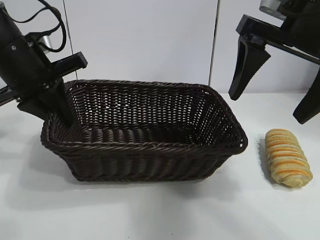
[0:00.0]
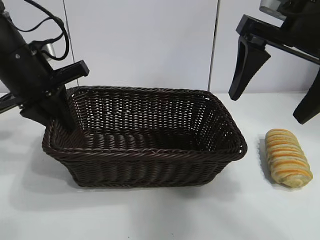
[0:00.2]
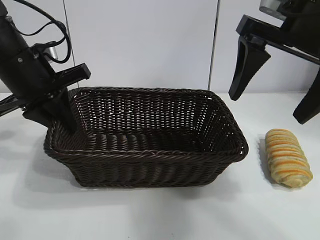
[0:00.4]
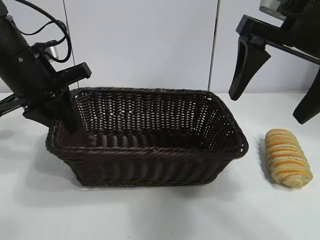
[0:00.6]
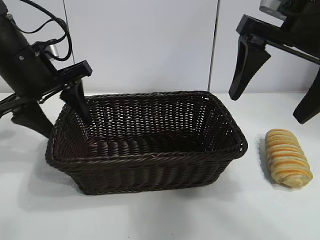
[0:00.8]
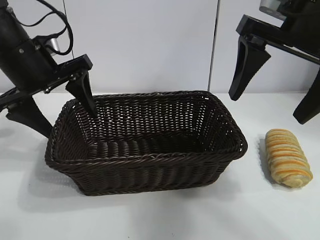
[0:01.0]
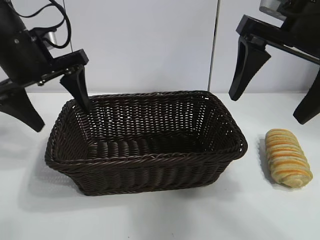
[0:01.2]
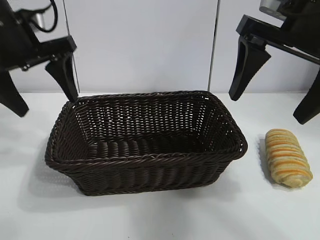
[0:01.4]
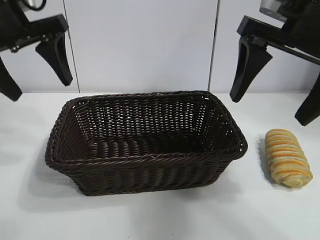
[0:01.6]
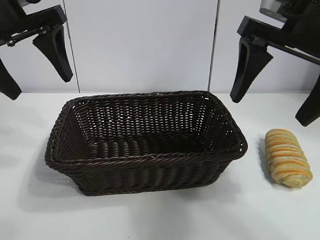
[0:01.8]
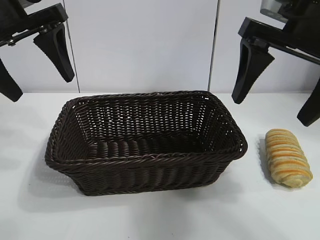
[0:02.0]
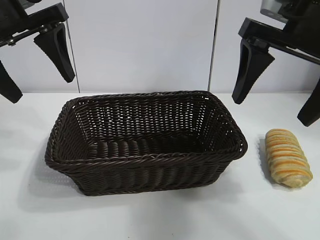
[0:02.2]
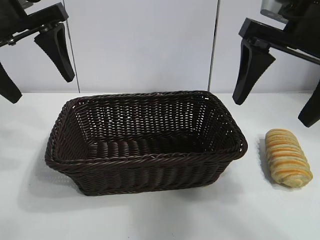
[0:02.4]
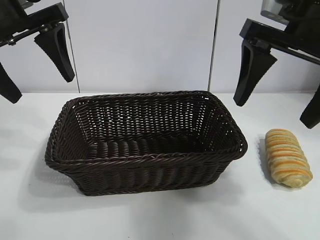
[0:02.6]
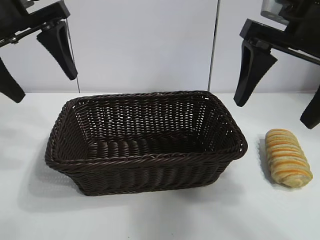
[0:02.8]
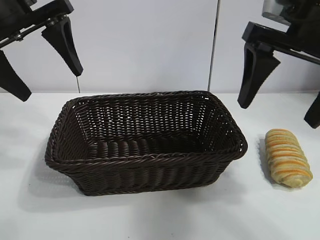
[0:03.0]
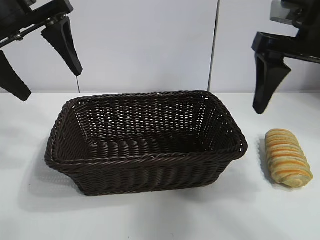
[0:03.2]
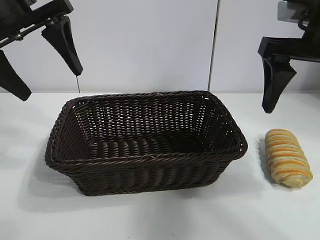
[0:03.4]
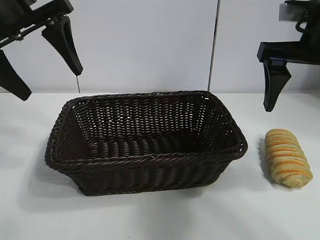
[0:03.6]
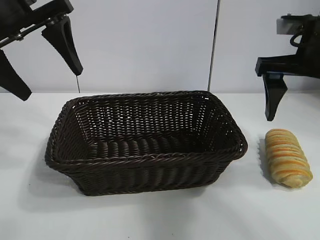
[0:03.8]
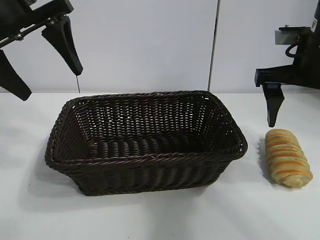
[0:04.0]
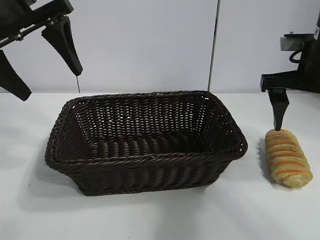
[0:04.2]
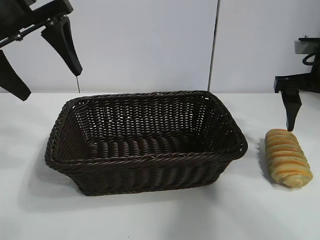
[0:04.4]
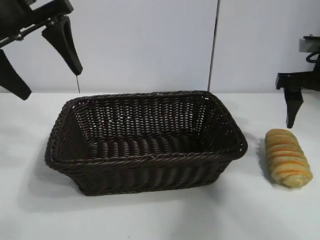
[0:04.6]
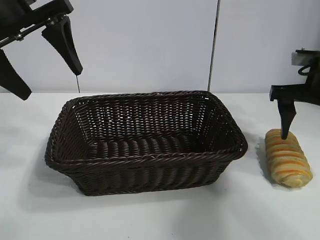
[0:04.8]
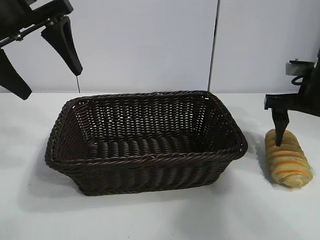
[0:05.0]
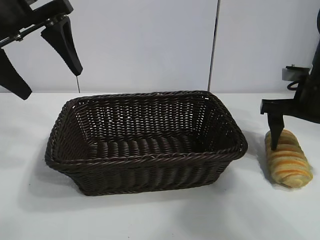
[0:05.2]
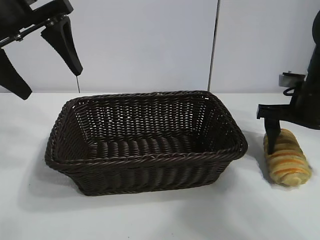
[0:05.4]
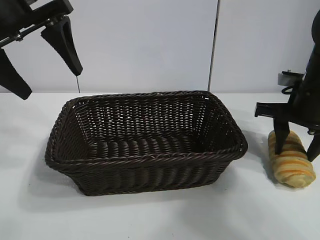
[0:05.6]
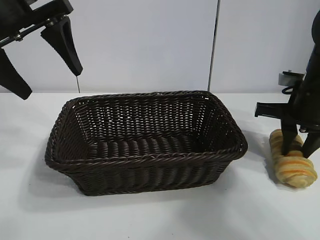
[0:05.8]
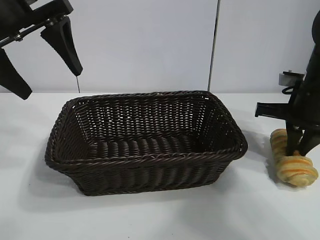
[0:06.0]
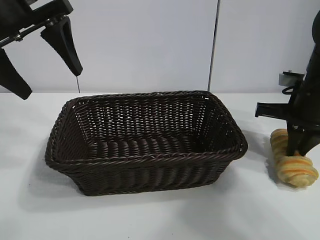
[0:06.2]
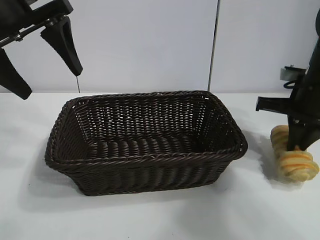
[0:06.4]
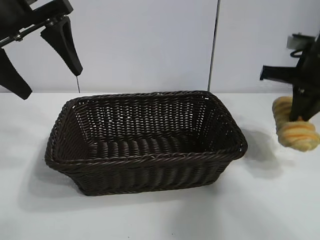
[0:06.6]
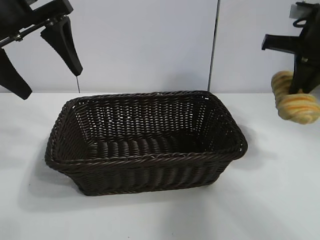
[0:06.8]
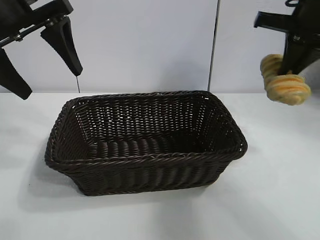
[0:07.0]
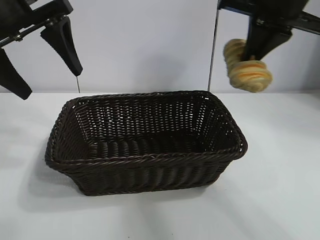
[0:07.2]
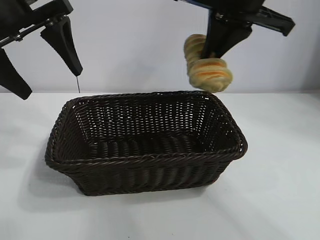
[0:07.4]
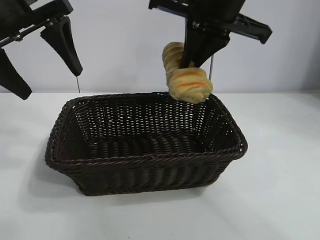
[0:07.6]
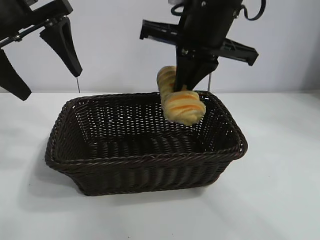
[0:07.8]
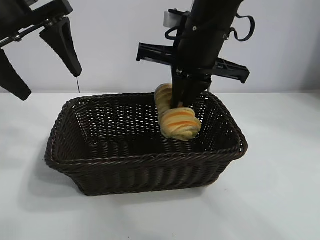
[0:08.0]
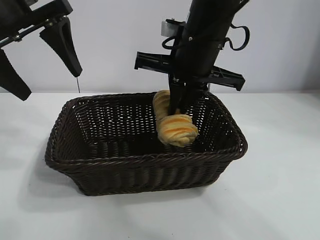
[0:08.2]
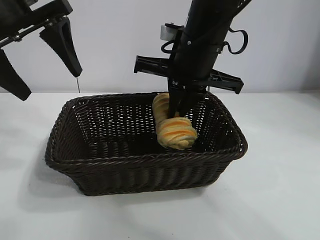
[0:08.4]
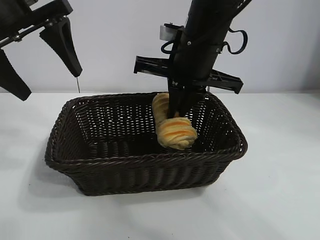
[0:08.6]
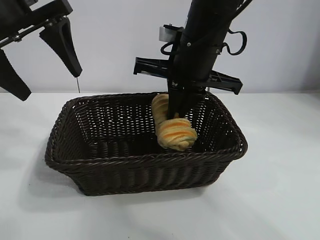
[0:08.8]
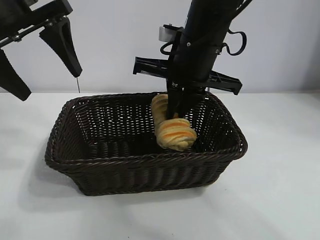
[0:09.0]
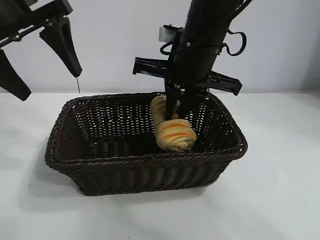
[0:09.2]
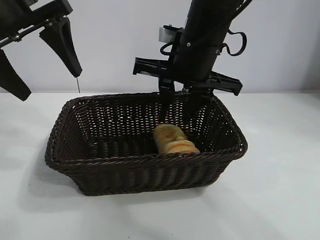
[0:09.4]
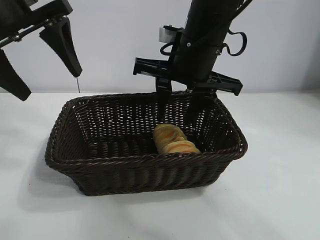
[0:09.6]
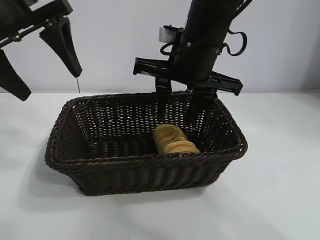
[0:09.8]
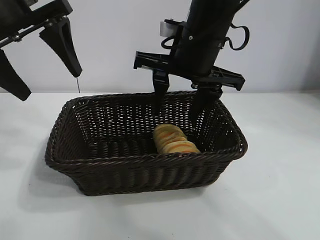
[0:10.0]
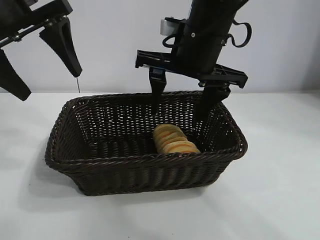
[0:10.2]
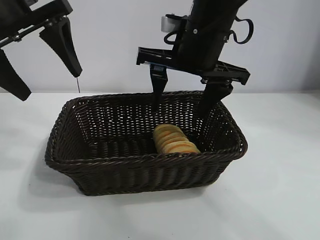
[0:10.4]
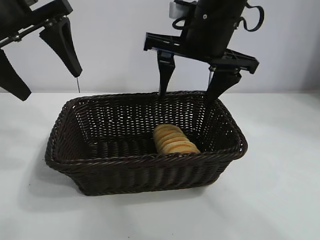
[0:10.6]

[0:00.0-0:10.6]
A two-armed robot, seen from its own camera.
Task of the whole recording: pick up the long bread and put it into the basket.
Step, 0:01.0 to 0:06.2: Grasp the long bread with right gripper.
Step, 0:06.4 to 0:09.6: Place the long bread in the basket with right gripper.
